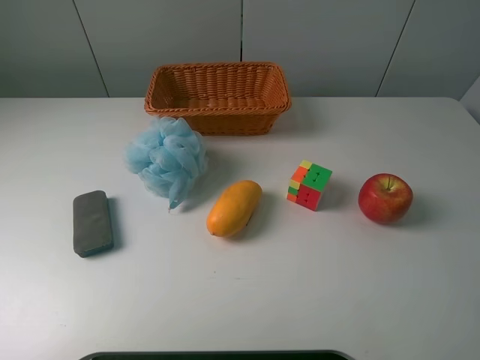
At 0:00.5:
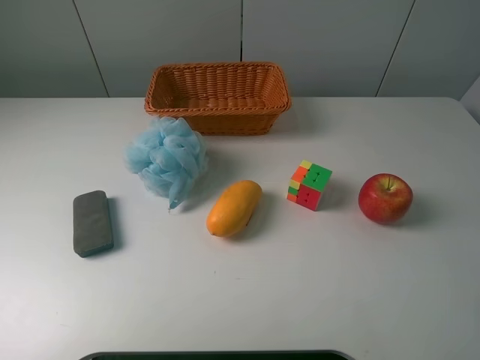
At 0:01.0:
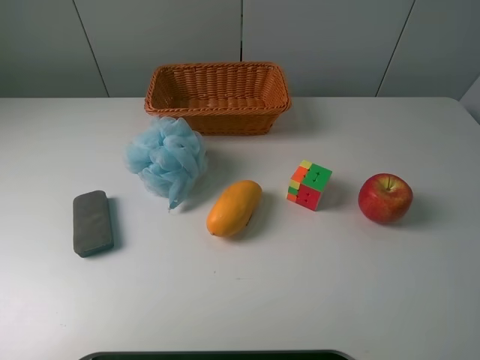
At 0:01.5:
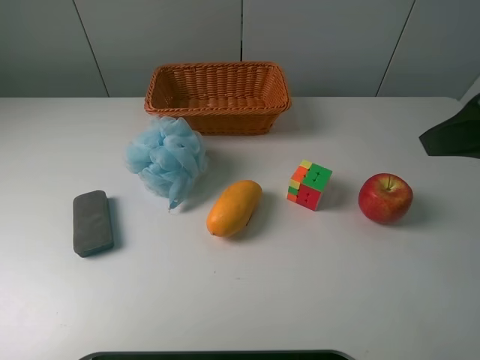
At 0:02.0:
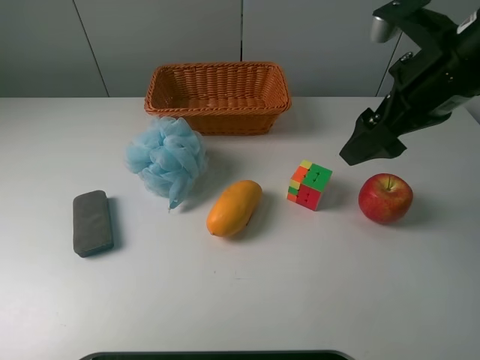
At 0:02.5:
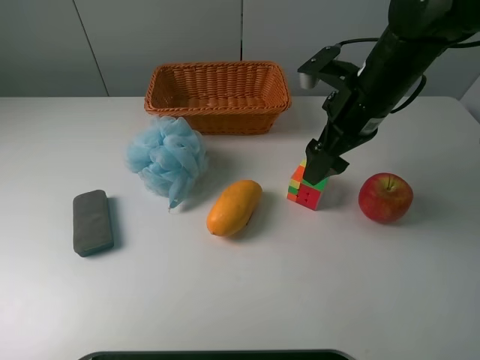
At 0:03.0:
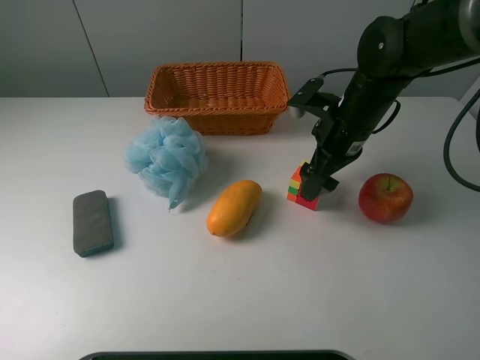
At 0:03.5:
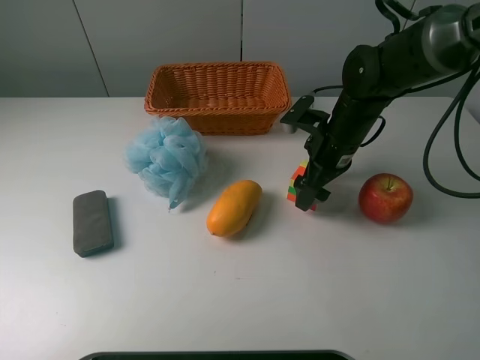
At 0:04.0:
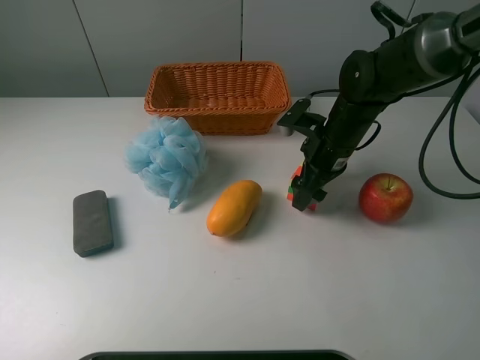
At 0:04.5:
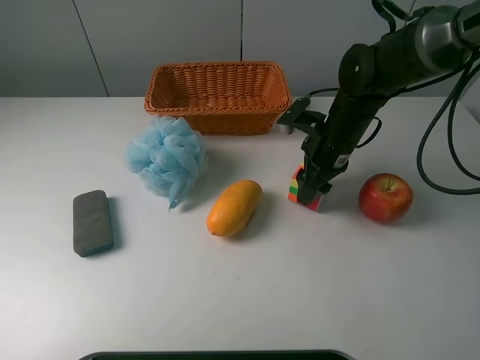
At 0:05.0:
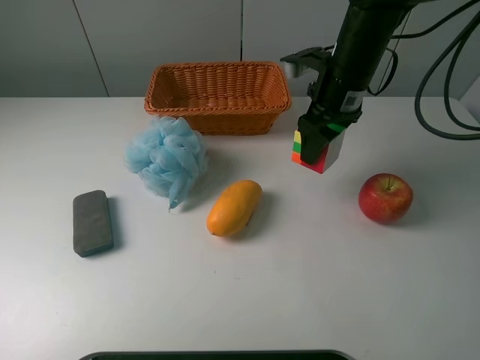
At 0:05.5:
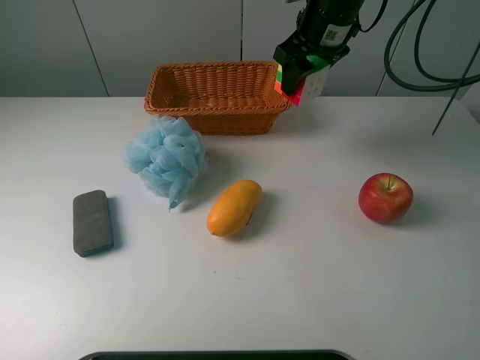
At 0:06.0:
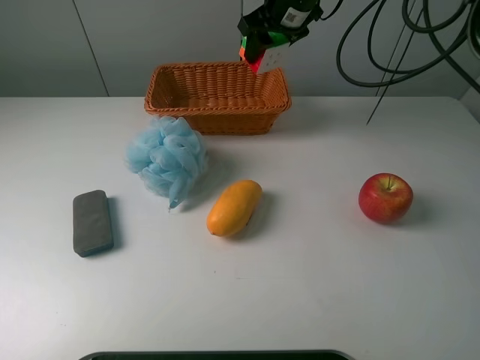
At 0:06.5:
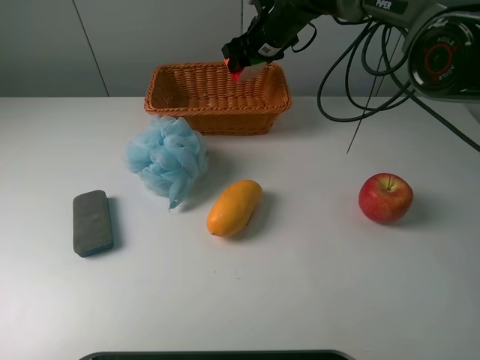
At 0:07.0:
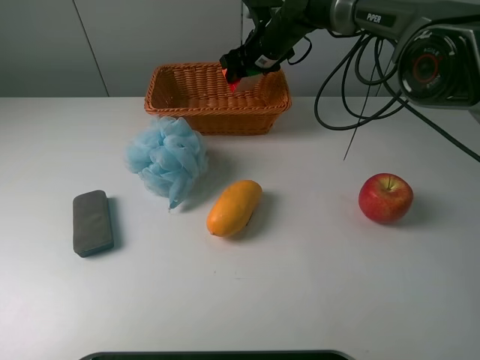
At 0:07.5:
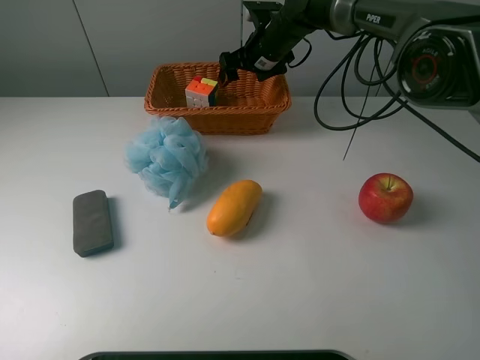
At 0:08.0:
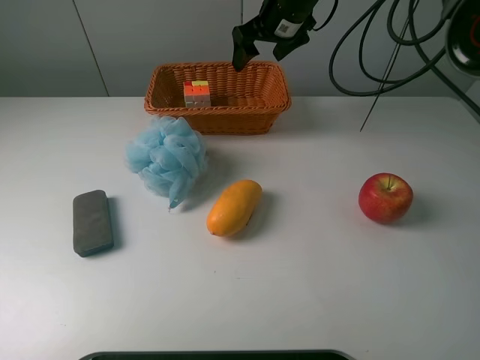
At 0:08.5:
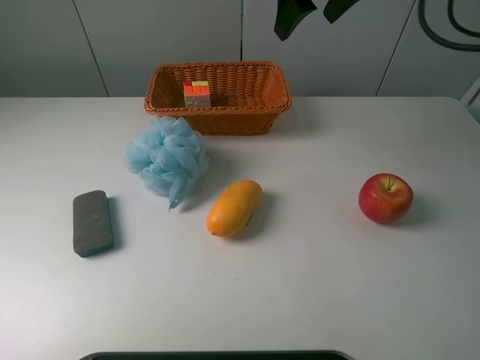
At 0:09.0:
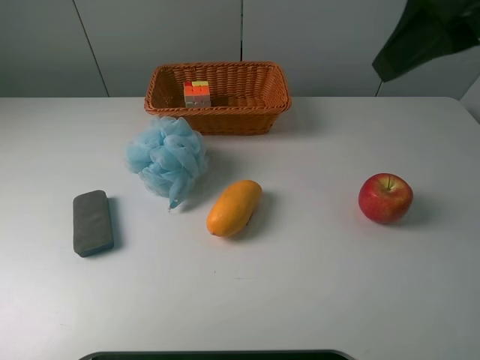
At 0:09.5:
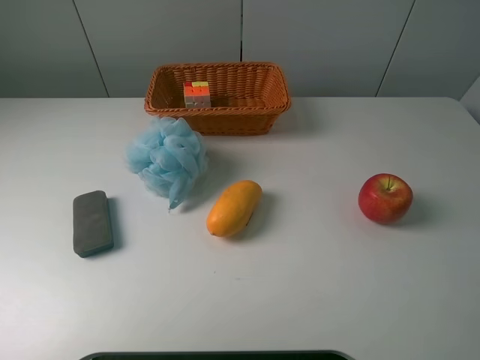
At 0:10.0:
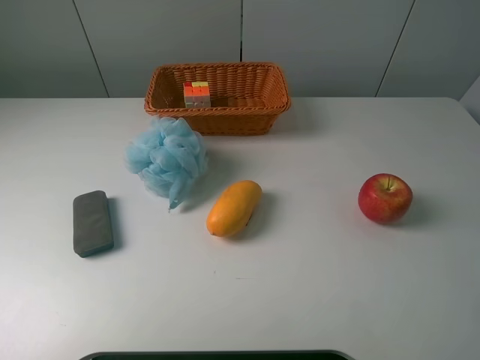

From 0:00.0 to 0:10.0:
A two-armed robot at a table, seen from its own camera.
Task of the whole recording: use a picker to grab the item closest to the apple and place it in the basket.
Step, from 0:00.0 to 0:04.0: Grasp the Rubik's Cube with the right gripper.
Step, from 0:04.5 to 0:07.5: Place the Rubik's Cube into the basket with the right gripper.
From 0:00.0 to 0:02.0: The right gripper shifts roughly 25 cm forward.
From 0:02.0 to 0:04.0: The right gripper shifts about 15 cm downward and forward, and closes its fingers.
From 0:04.0 to 0:06.0: The right gripper is displaced forward, upward and to the left by approximately 20 cm, and closes its fingers.
From 0:06.0 to 0:08.0: The right gripper travels downward and back again, about 10 cm each way, and opens.
From 0:08.0 to 0:10.0: The right gripper moves backward and to the right, roughly 50 cm.
